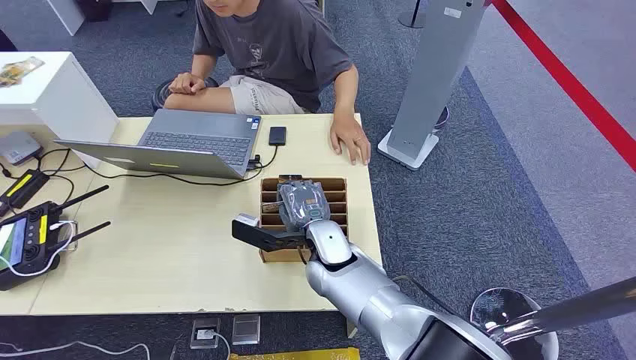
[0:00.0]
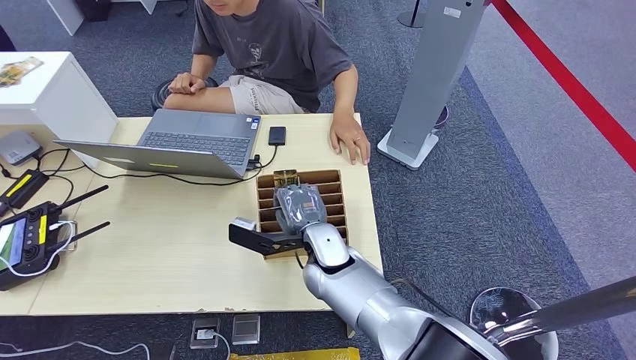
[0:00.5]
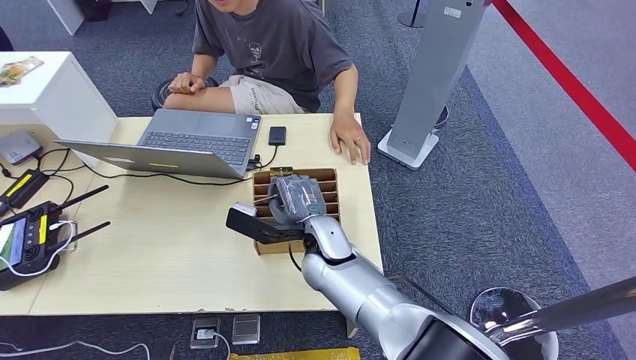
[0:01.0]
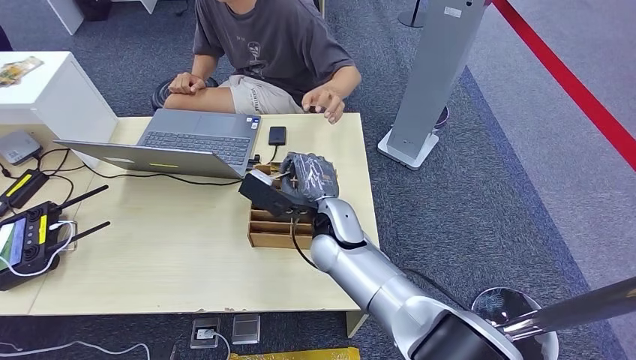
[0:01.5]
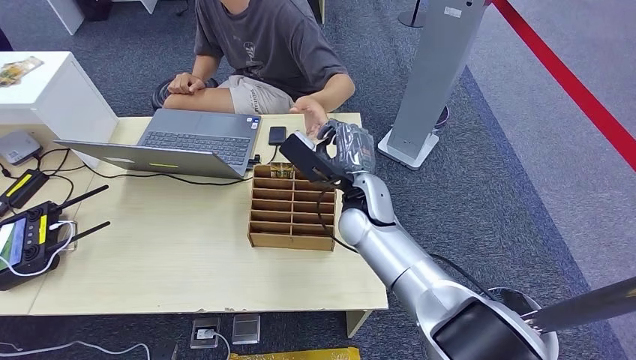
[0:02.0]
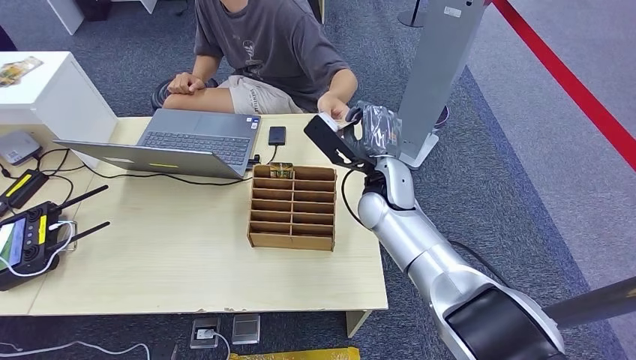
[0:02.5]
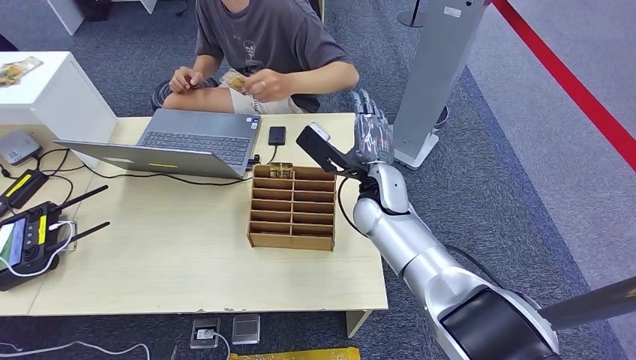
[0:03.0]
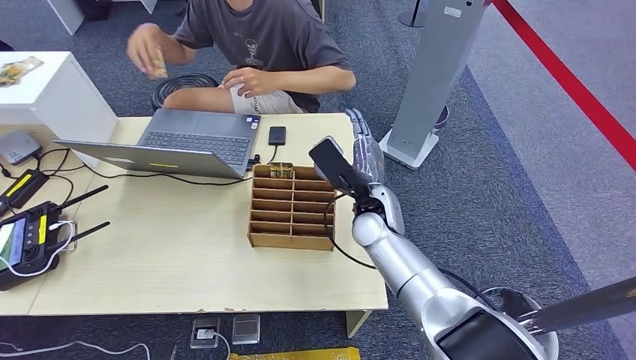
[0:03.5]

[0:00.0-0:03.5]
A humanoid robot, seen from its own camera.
Step, 0:00.0 to 0:01.5: Pick up the key card from the card box.
Step, 0:02.0 to 0:03.5: Hand the key card to the target.
0:02.0 to 0:03.5: The hands make only small movements.
